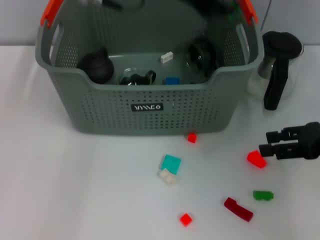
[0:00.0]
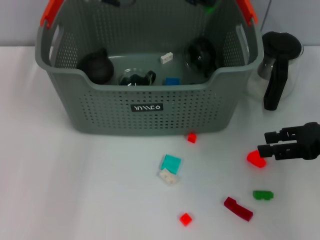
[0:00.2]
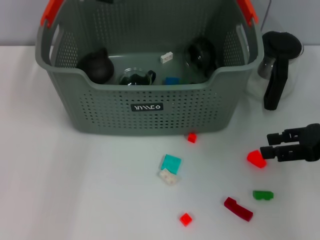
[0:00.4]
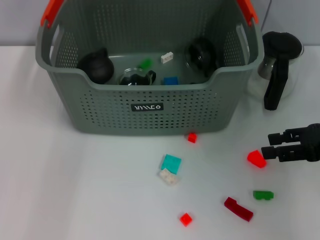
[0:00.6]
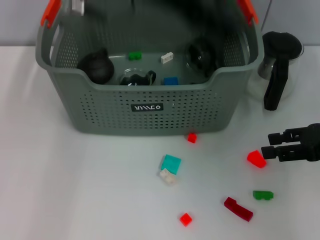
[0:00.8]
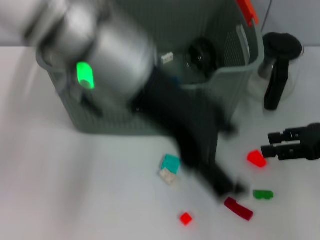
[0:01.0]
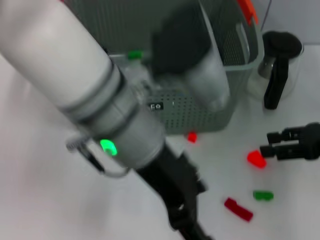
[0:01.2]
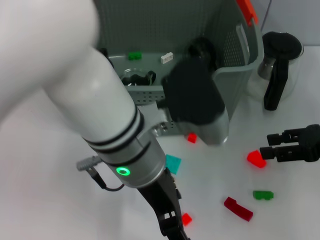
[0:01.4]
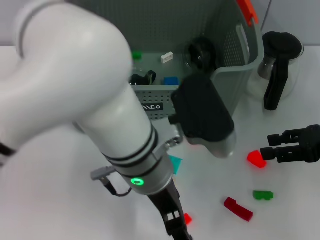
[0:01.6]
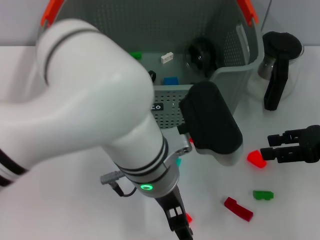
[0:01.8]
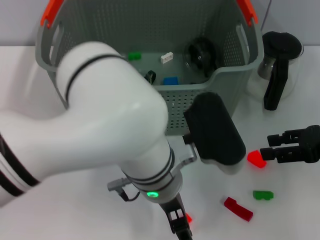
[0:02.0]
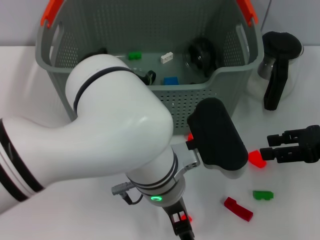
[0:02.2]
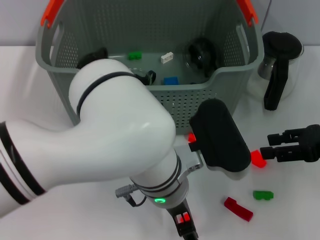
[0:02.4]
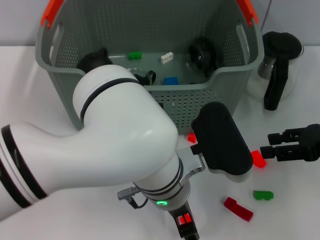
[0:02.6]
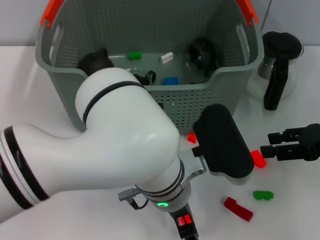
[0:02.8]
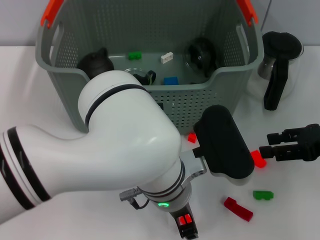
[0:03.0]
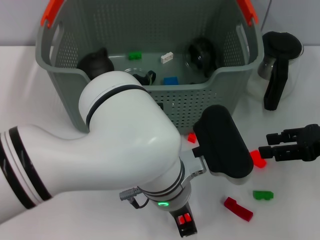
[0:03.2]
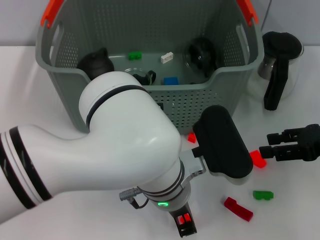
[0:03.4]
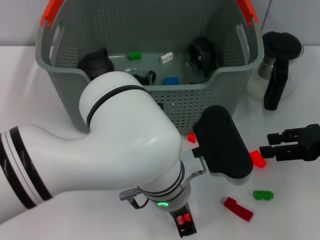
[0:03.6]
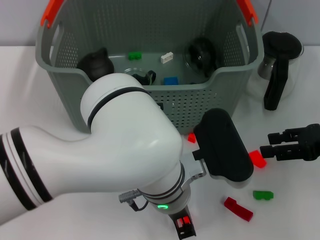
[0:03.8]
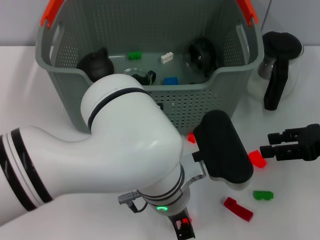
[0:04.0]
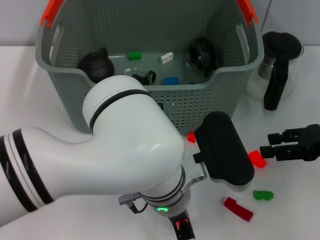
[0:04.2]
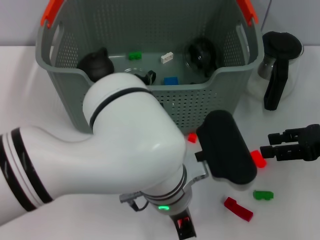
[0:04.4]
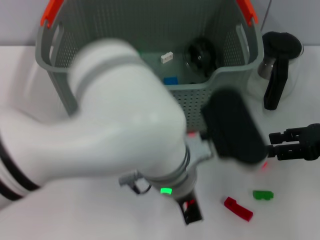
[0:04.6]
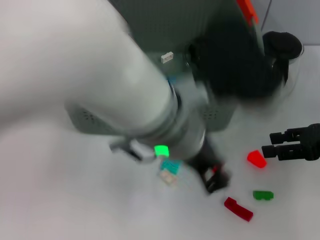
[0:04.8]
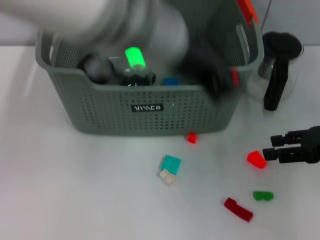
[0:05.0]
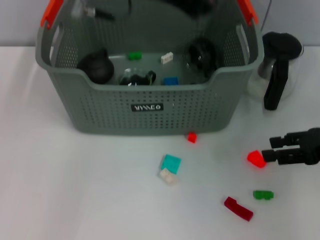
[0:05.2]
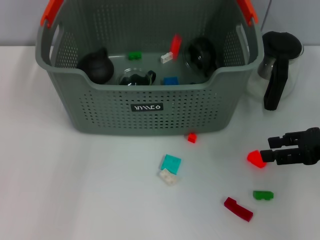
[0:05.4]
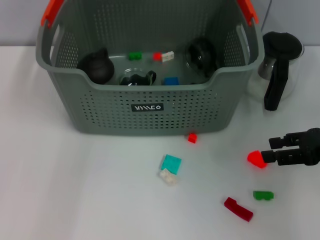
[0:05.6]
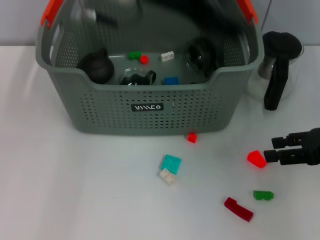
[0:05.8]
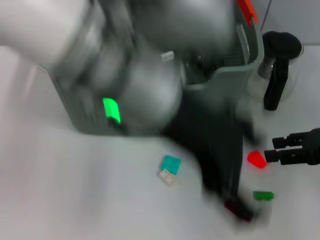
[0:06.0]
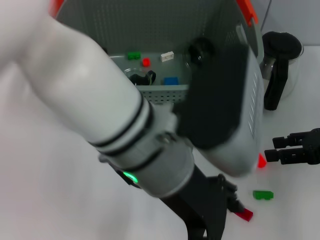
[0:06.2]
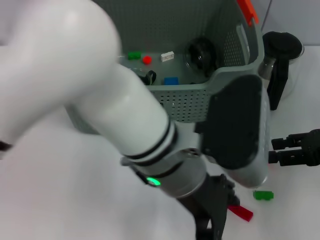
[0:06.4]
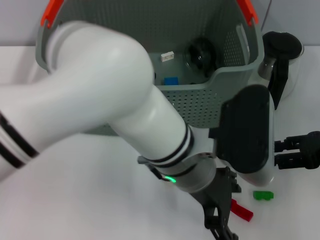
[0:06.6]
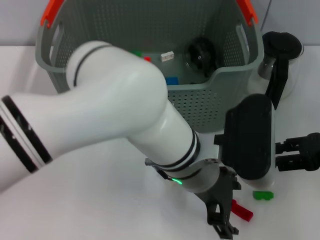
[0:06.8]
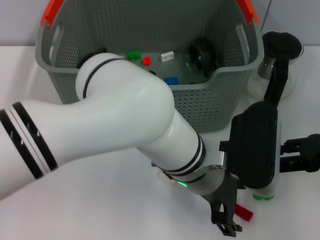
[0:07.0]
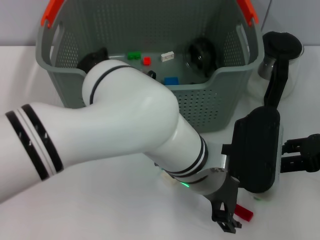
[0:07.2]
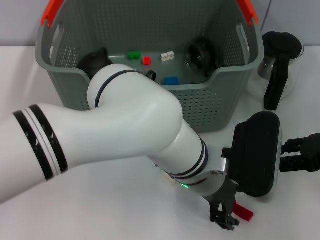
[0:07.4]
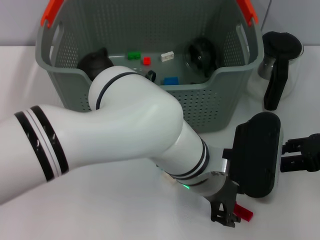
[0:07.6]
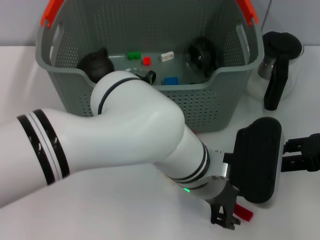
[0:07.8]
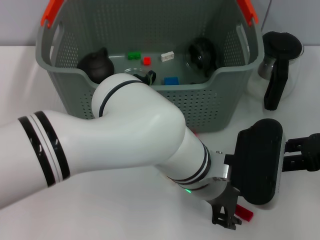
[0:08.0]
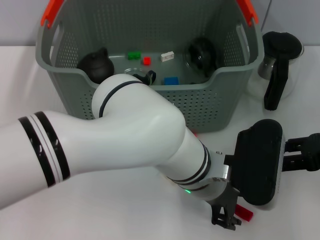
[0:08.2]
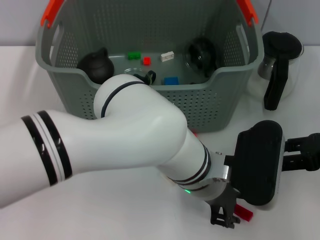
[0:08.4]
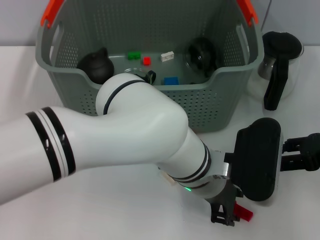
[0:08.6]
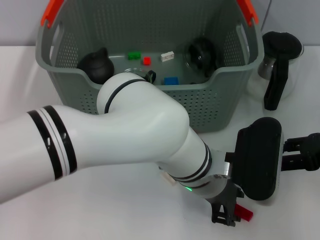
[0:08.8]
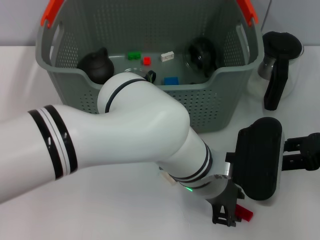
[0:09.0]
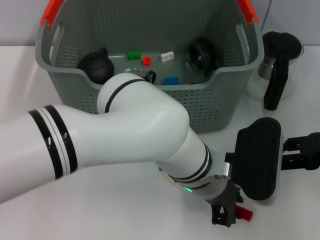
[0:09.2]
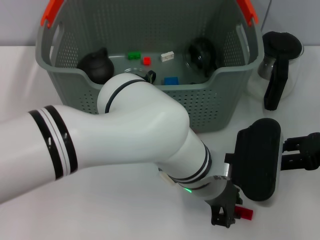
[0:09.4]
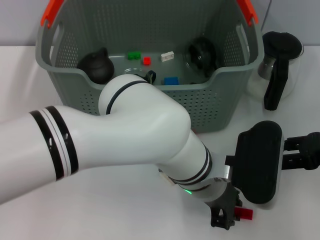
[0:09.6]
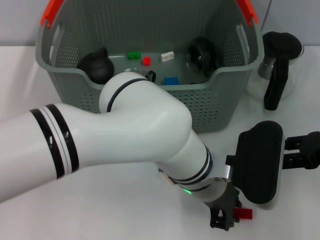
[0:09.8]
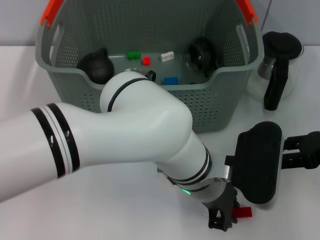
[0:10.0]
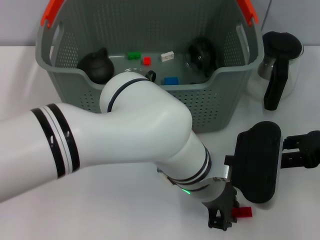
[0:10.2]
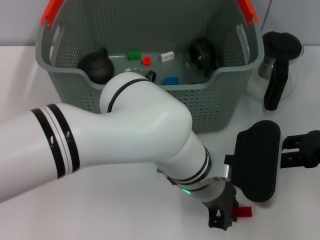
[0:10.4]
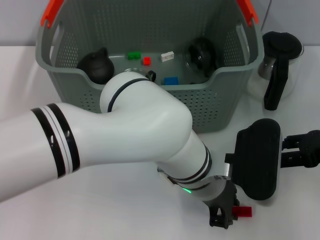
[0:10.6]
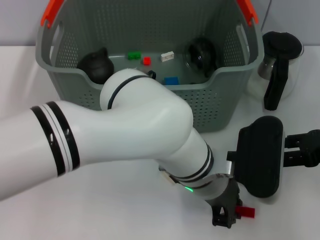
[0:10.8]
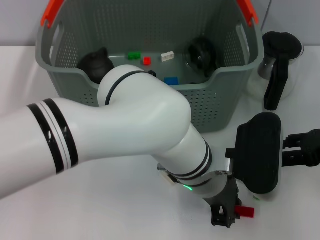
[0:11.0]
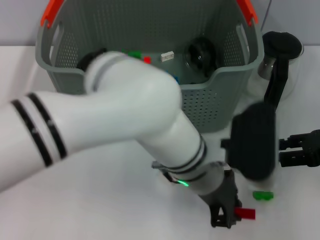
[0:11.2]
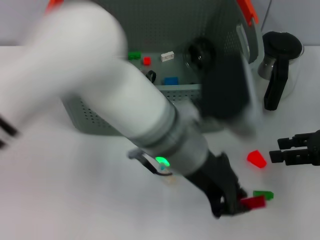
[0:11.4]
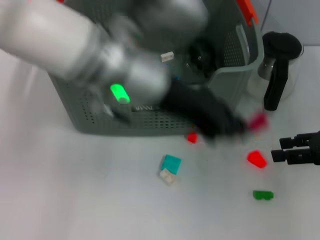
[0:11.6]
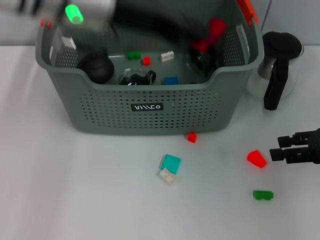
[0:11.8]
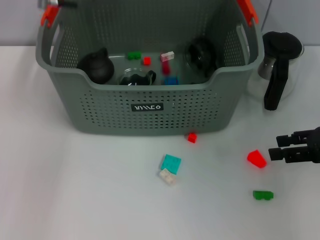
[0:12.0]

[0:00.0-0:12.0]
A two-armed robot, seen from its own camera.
Task of the whole recording: pick up the teacup on the table and place it into the storage bin, pick up the block on the table and place it into the storage bin.
Step, 0.8 to 4.2 s: Grasp the orange block with left gripper.
Step, 4.4 to 5.4 s: Place the orange block in the storage box with left gripper.
Step, 5.8 to 10.6 s: Grasp the red block with left gripper.
0.0 to 1.6 s: The left gripper moves downward and backward, approximately 20 cm, and opens up.
1.6 to 3.0 s: The left gripper travels downward by about 5 cm.
3.0 to 4.4 s: The left gripper closes.
4.4 to 6.0 s: The left gripper heads upward, covering some 15 cm, and opens up.
6.0 to 7.6 s: The left gripper heads downward and to the right, covering some 20 cm.
7.6 to 10.4 s: Both grippers stay about where they are.
10.4 to 12.0 s: The left gripper travels upward, to the left and forward by some 30 cm.

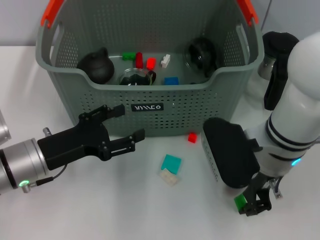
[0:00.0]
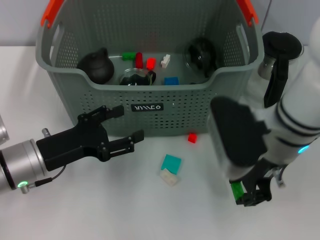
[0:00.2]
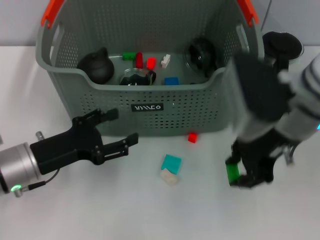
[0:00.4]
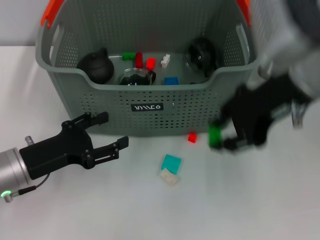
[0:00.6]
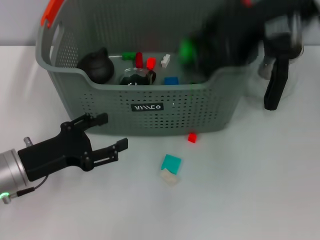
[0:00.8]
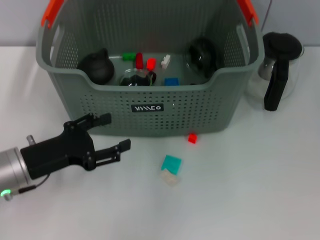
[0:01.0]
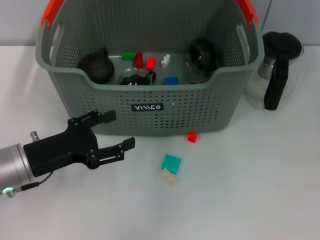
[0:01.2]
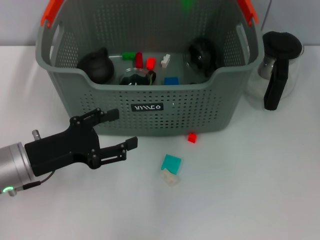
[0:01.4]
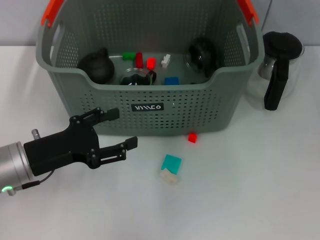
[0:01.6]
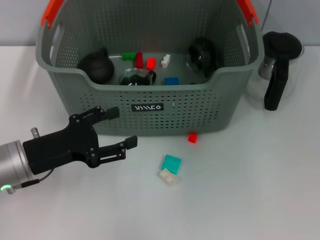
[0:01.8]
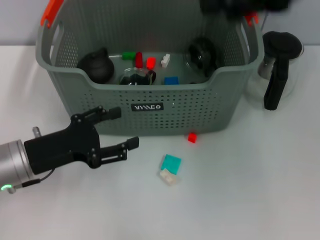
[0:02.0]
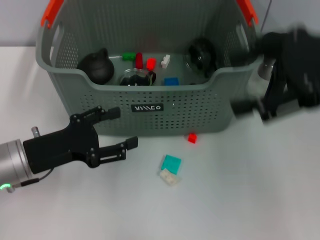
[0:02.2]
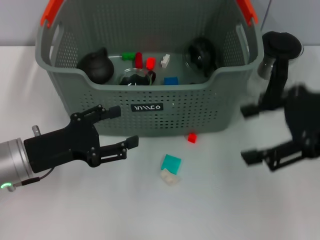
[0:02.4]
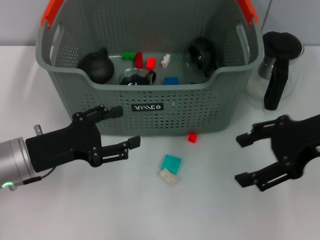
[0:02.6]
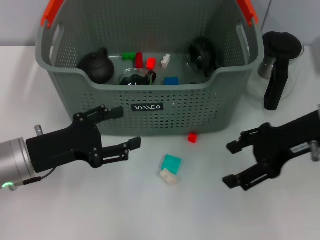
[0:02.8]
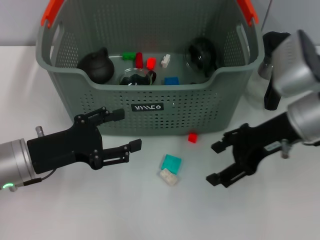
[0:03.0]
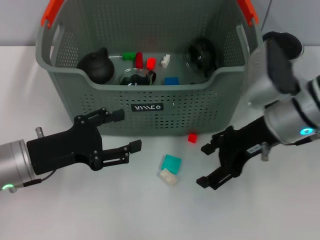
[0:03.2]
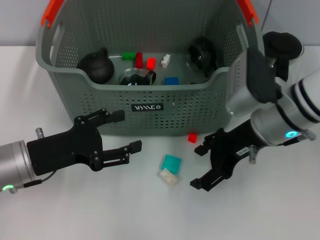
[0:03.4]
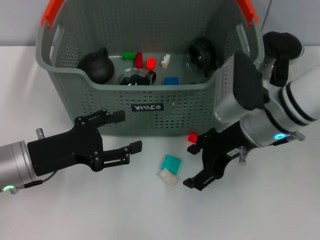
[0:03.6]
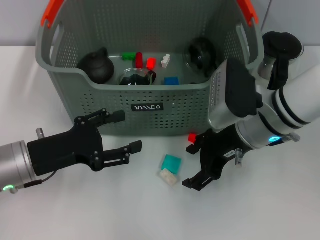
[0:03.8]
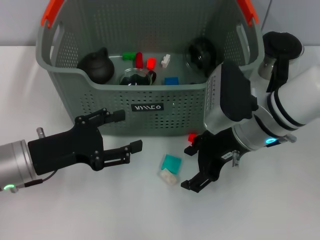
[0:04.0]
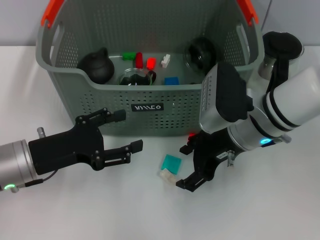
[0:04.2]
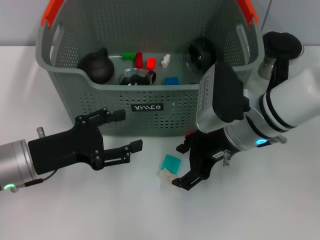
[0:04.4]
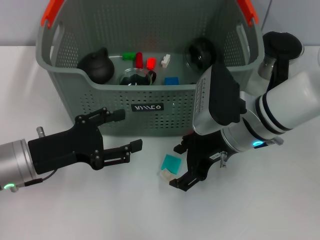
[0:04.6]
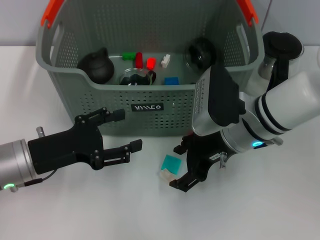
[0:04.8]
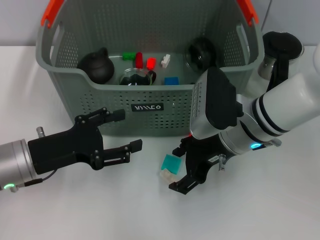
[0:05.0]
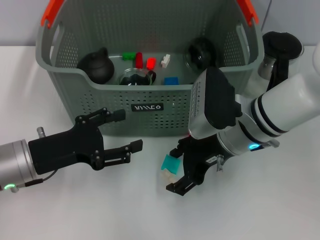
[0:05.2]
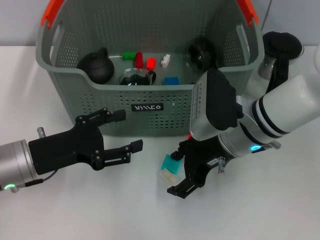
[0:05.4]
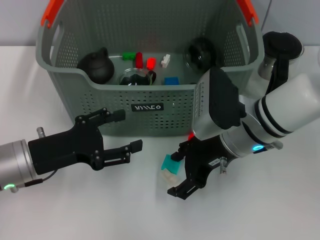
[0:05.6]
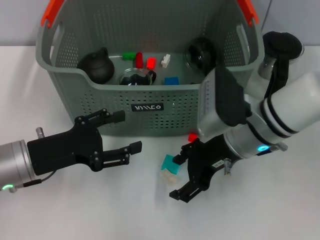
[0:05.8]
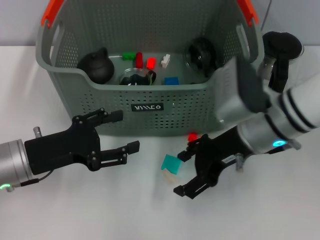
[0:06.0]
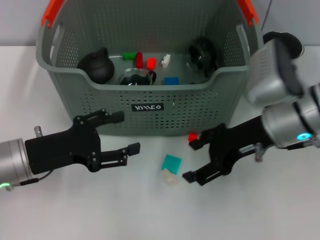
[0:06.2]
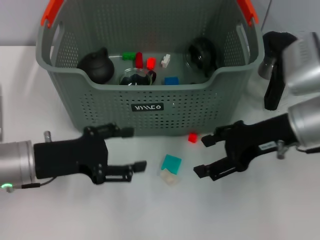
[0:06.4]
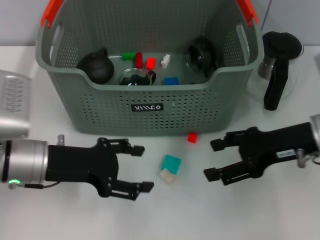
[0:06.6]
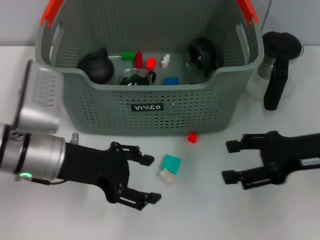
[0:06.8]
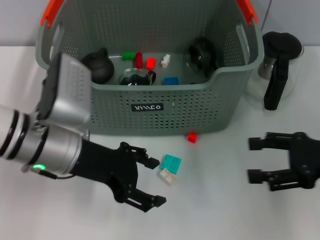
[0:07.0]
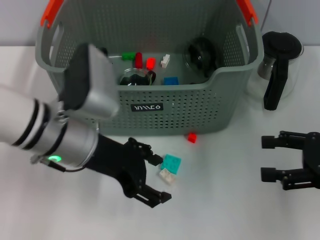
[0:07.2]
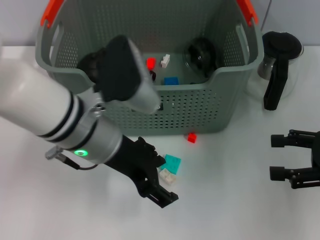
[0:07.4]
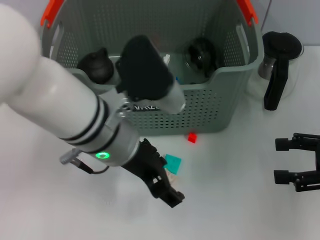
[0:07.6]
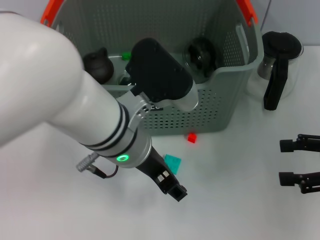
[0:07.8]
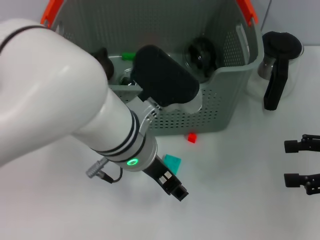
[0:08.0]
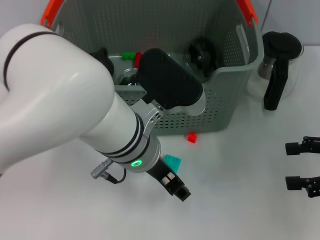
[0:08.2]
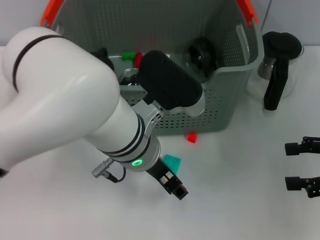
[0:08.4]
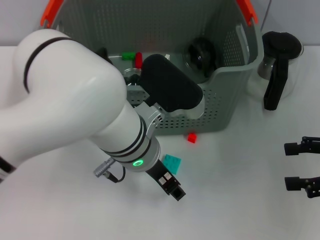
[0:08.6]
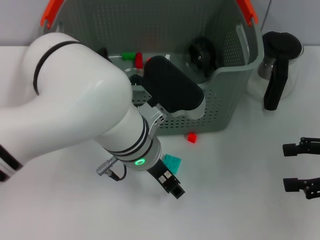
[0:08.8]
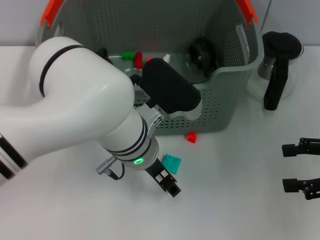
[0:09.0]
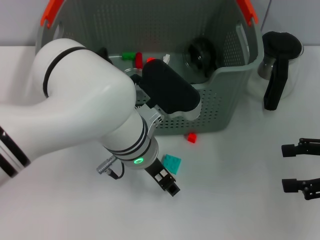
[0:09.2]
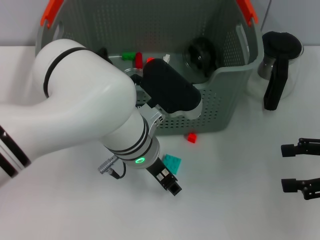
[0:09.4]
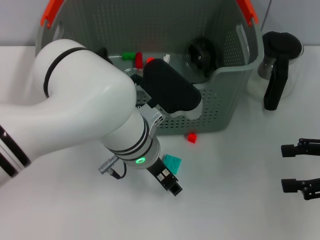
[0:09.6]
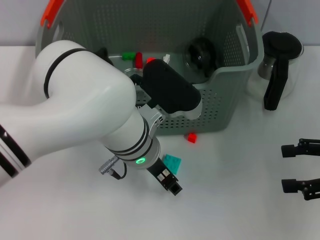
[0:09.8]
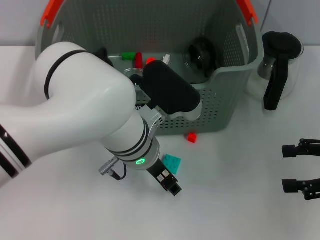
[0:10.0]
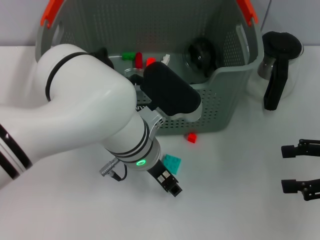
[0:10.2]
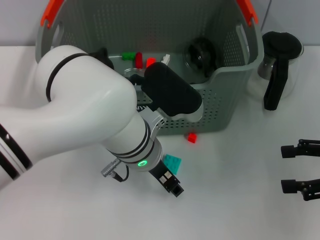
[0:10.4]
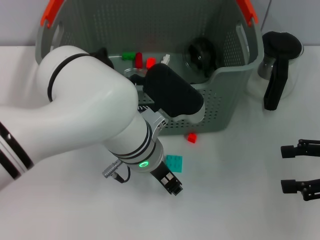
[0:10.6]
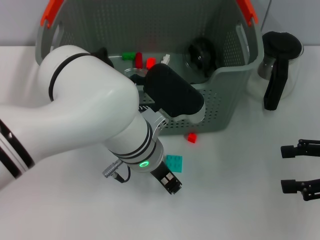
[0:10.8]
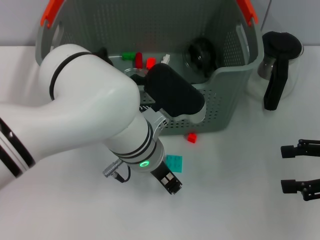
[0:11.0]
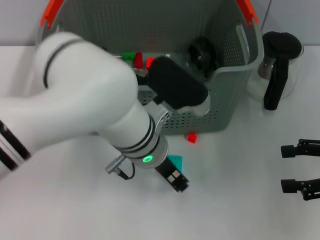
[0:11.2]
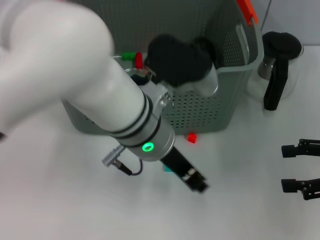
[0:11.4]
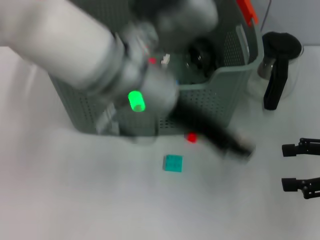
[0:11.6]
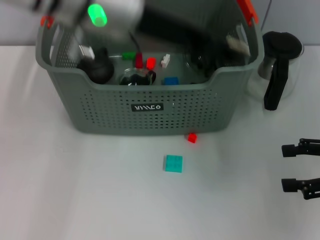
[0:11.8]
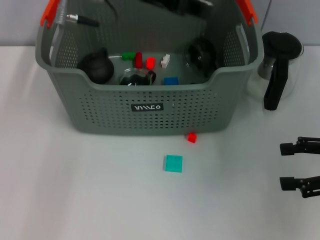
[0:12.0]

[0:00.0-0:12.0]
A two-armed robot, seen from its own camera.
Task of the whole recording: pick up the teacup on the table and place it into the storage bin, pick up the block on the table and place it into the storage bin.
Step, 0.0 to 1.6 s: Place the green block in the storage box with right gripper.
Step, 1.8 to 10.8 s: Grasp the white block with left gripper.
0.0 to 1.6 s: The right gripper goes approximately 20 cm upward and forward.
1.6 to 3.0 s: The right gripper moves downward and backward, roughly 20 cm, and opens.
3.0 to 4.4 s: The right gripper goes about 10 cm to the left.
4.4 to 6.0 s: The grippers move only a little.
6.0 to 7.6 s: The right gripper shifts some 20 cm to the right. The left gripper moves to the right and upward, some 20 cm.
7.6 to 9.0 s: The left gripper shifts roughly 5 cm downward.
9.0 to 10.4 s: The two grippers keep their place.
10.4 to 12.0 s: The left gripper goes roughly 20 cm upward, forward and to the left.
